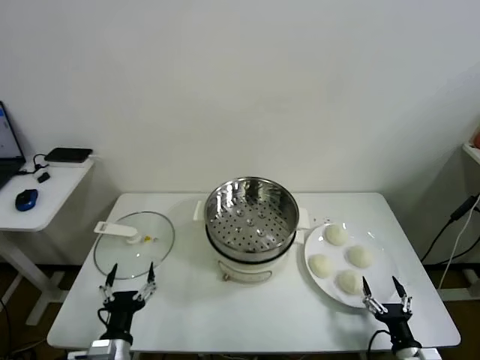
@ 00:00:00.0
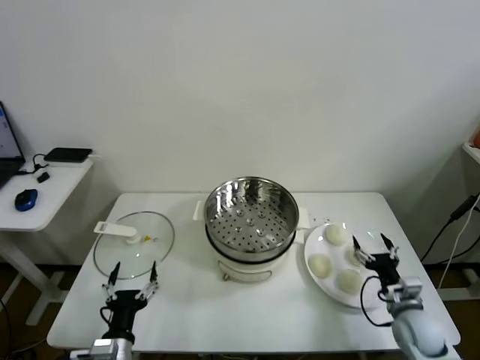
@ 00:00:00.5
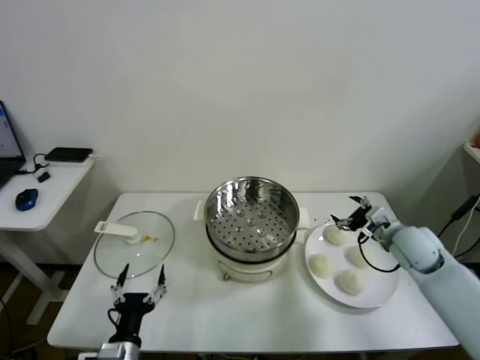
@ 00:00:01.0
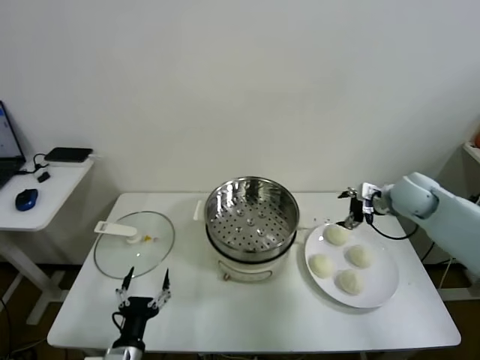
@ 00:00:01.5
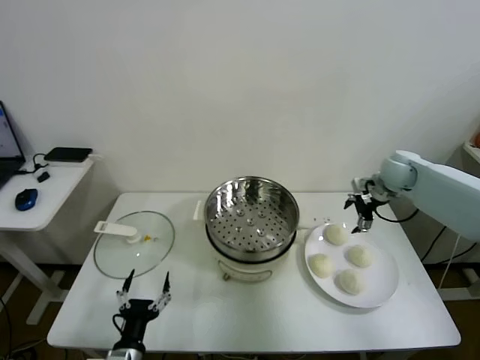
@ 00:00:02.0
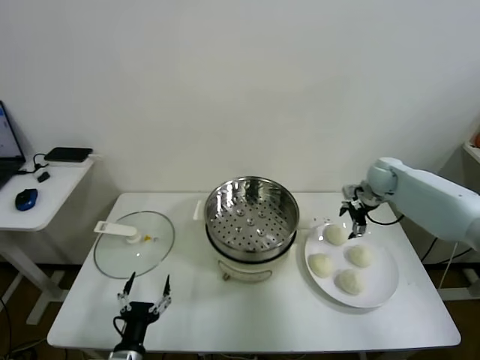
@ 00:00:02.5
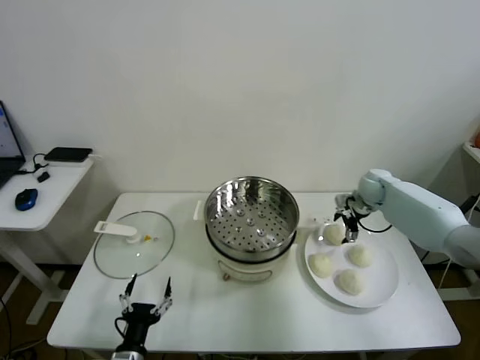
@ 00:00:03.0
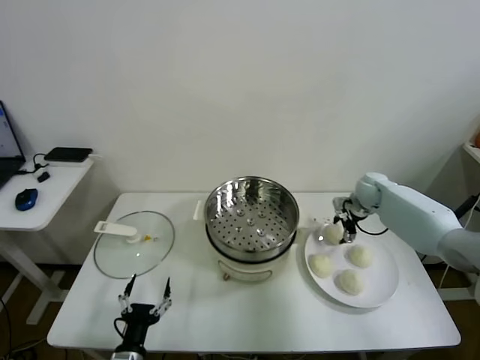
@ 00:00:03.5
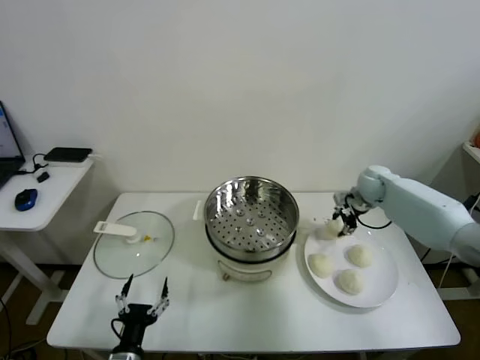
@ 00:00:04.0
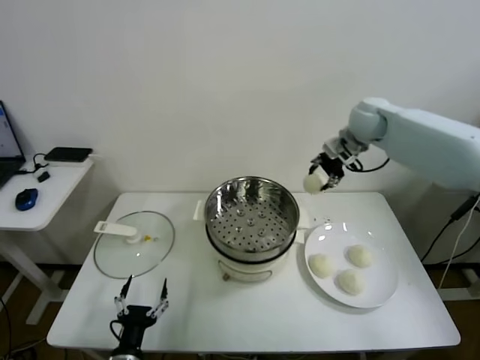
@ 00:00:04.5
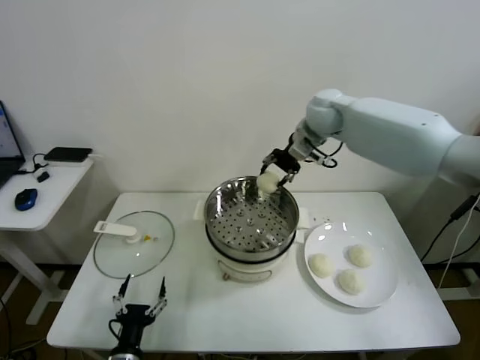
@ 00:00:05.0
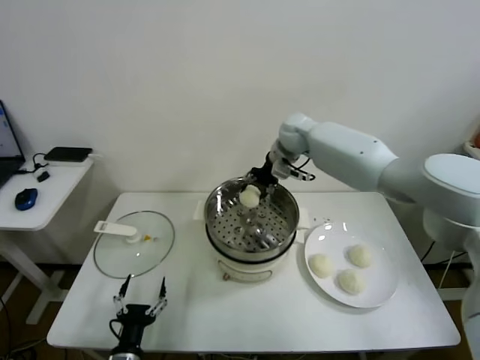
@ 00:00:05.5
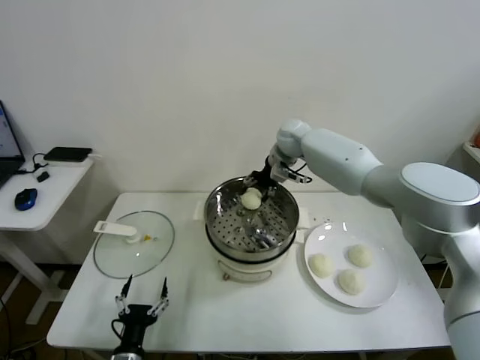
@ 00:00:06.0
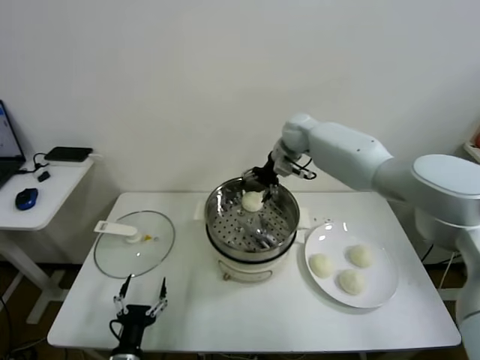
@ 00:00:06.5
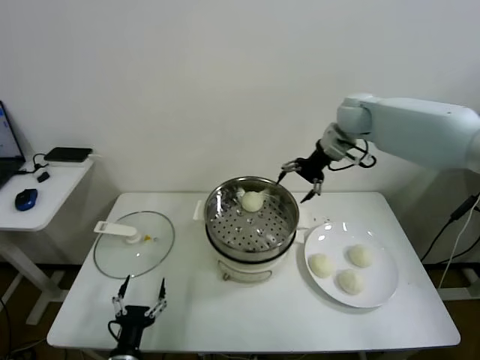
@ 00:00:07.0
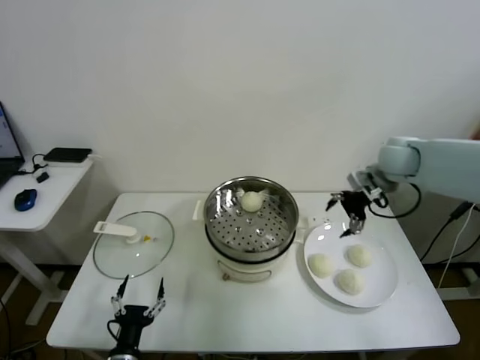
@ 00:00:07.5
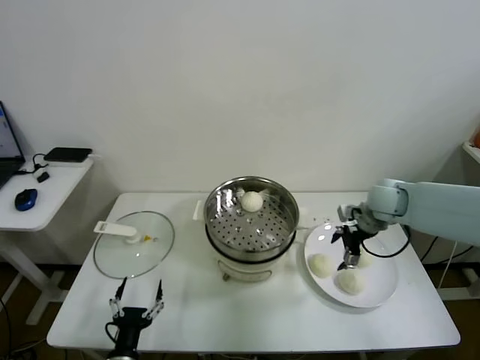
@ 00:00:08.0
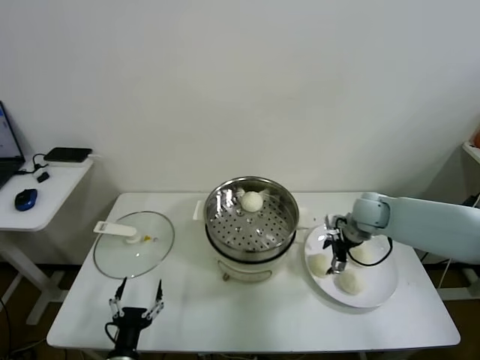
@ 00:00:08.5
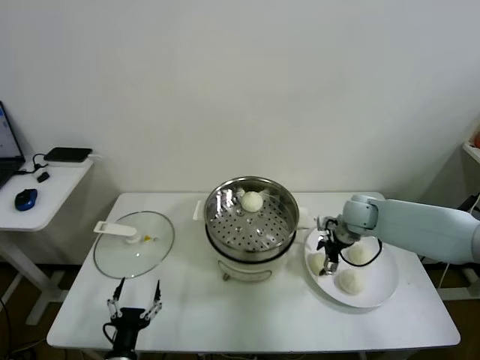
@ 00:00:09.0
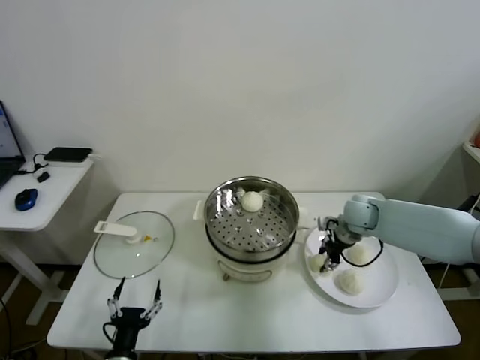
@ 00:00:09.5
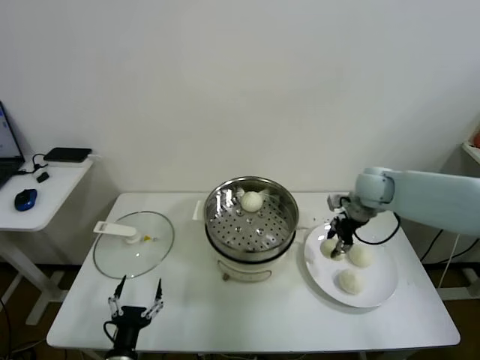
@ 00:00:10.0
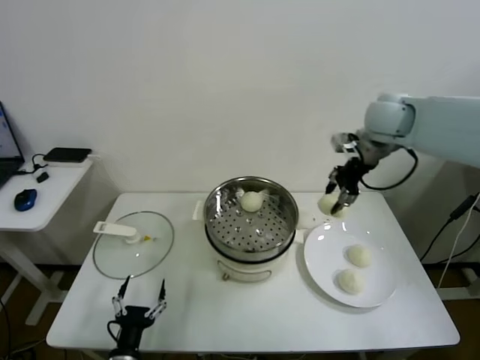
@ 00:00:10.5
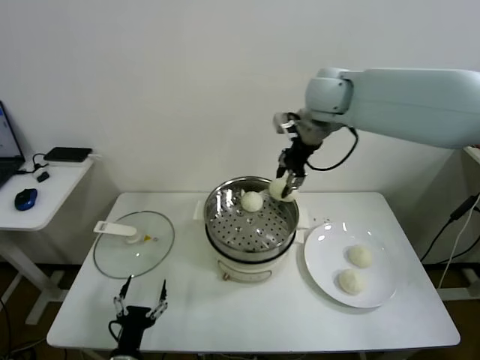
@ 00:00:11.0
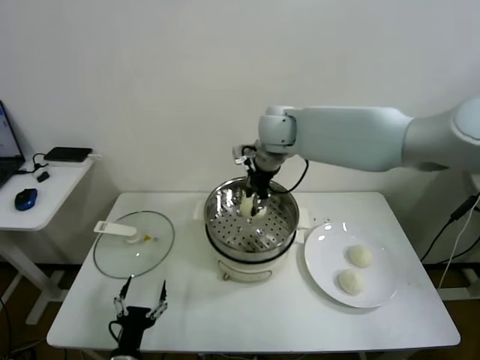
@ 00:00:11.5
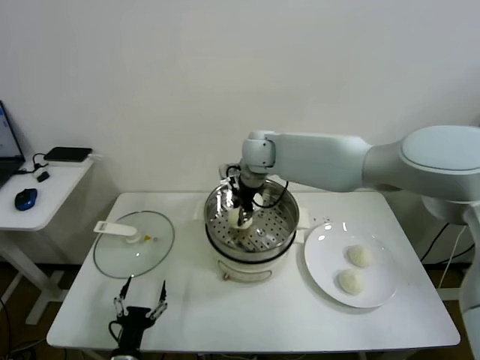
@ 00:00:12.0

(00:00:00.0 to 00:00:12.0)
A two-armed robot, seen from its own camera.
Task of the whole recording: take steamed baozi put them in steamer.
Step, 00:00:00.0 - 00:00:03.5: Grasp the baozi in the plate with right gripper.
Step, 00:00:04.0 - 00:00:06.0: Place the baozi on the steamer with right gripper.
Step, 00:00:06.5 - 00:00:09.0: Grasp the baozi in the plate with right gripper.
00:00:02.0 - 00:00:04.0: The right gripper closes its fingers.
00:00:04.0 - 00:00:06.0: The right gripper goes about 20 cm to the left, and opens up.
00:00:06.0 - 00:00:08.0: The right gripper goes some 25 cm to the right, backward and downward.
00:00:08.0 - 00:00:10.0: The right gripper ends up some 5 cm from where it was, and closes.
00:00:10.0 - 00:00:12.0: The right gripper goes about 25 cm to the left.

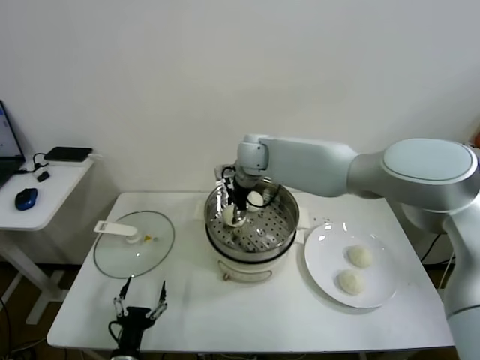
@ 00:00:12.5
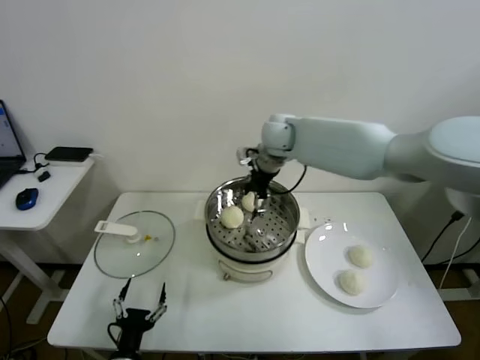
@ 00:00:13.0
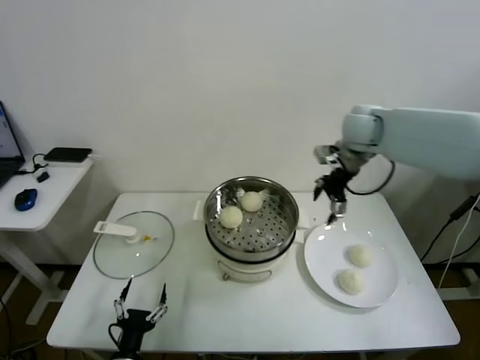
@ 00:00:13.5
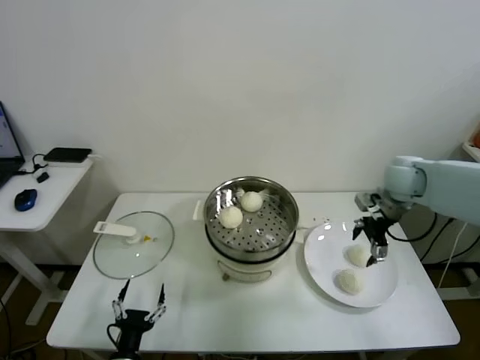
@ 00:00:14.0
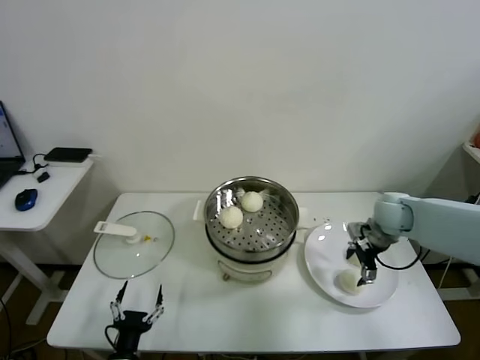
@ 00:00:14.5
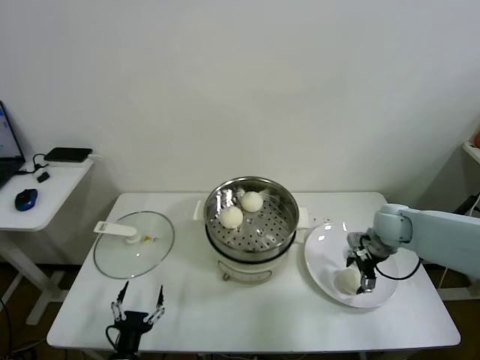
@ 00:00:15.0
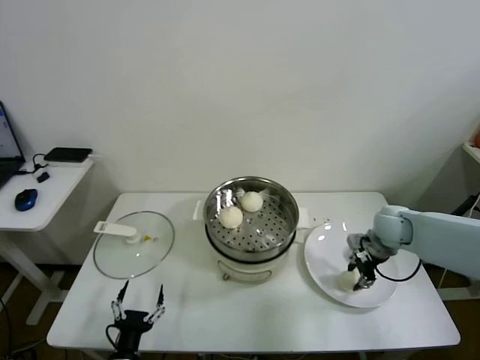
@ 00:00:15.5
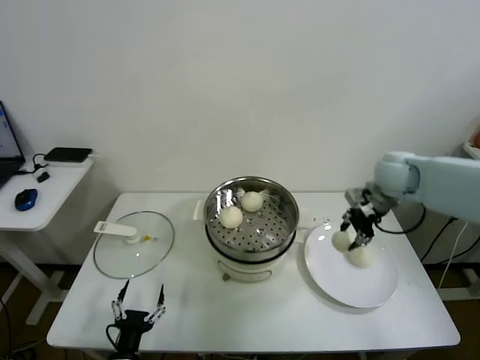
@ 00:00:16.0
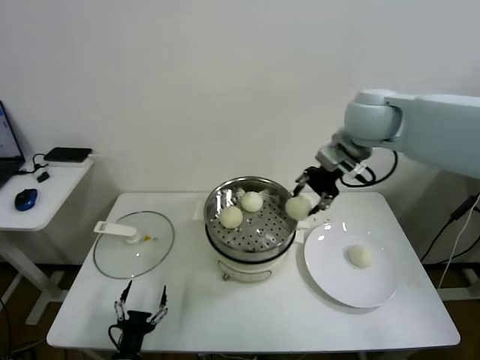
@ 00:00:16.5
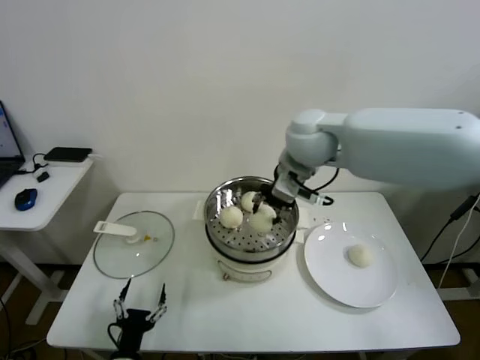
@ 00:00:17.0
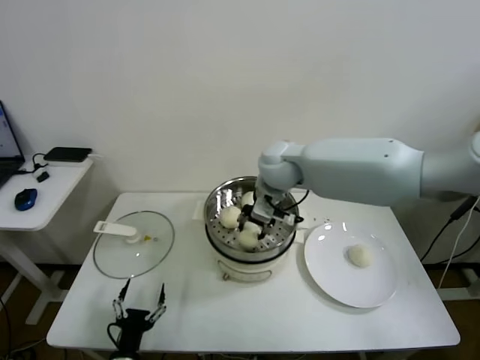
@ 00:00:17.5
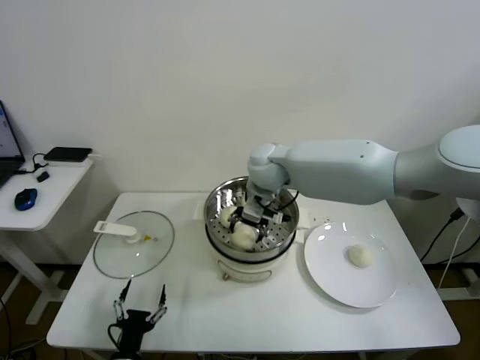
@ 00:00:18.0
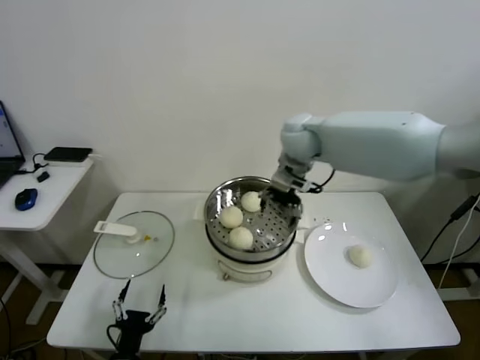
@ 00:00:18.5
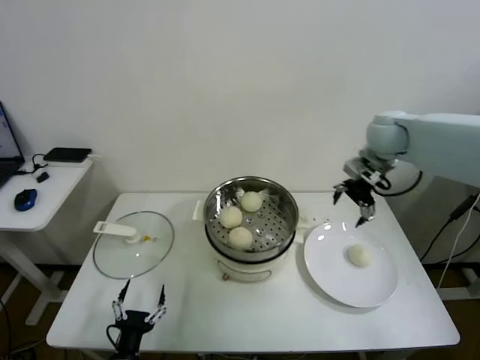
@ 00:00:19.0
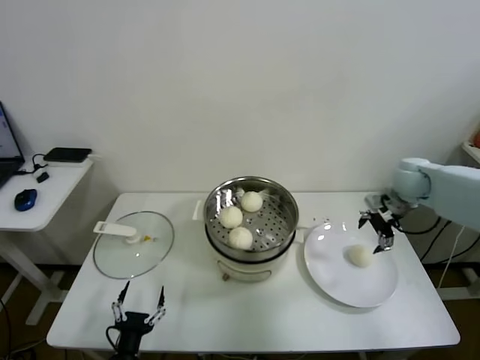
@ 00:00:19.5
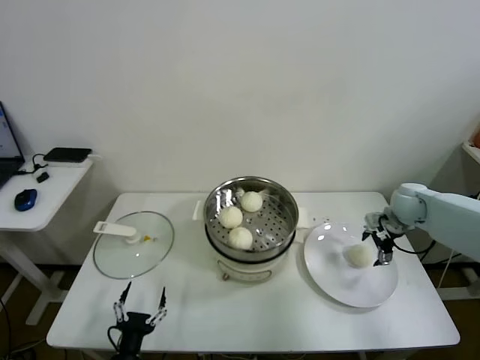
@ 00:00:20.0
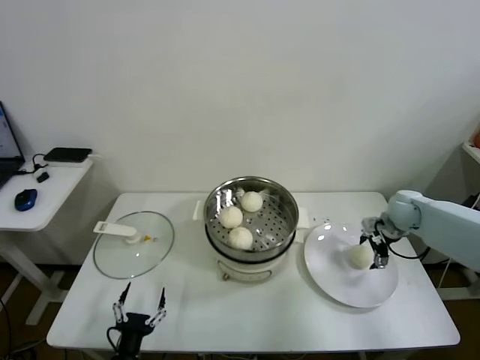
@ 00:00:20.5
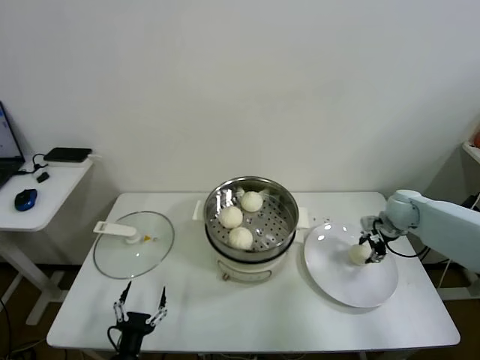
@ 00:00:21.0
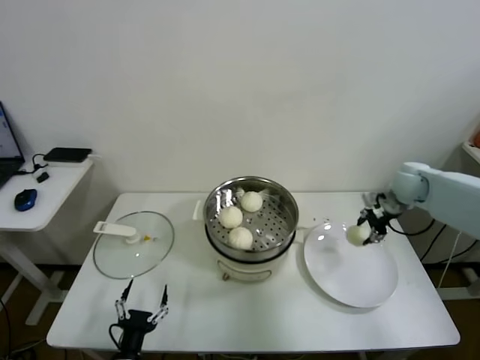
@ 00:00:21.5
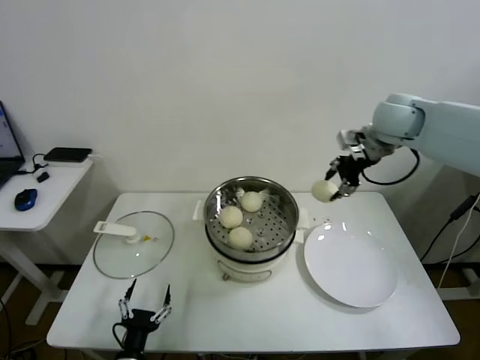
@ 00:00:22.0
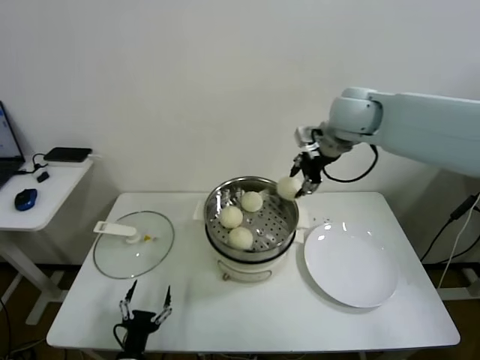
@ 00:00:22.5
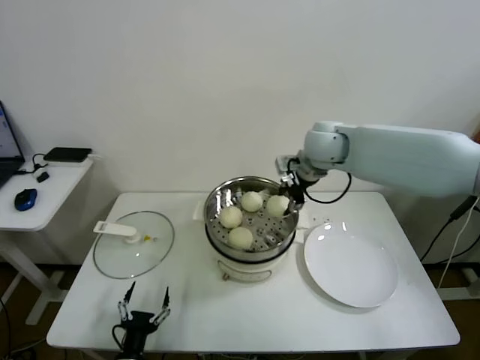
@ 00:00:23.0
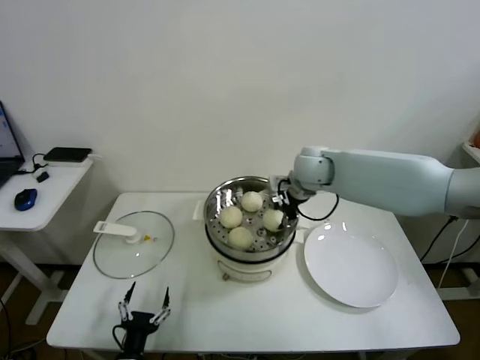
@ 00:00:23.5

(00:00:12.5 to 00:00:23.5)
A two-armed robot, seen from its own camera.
Task of the whole recording: take steamed baozi put them in steamer.
Step, 00:00:13.0 - 00:00:15.5: Grasp the baozi in the plate with right gripper.
Step, 00:00:16.0 - 00:00:18.0: Place the baozi on the steamer with right gripper.
Step, 00:00:18.5 - 00:00:21.0: Grasp the baozi in the plate with right gripper.
00:00:12.5 - 00:00:14.5: The right gripper travels to the right by approximately 35 cm, and opens.
00:00:14.5 - 00:00:16.0: The right gripper travels upward by about 10 cm, and closes.
00:00:16.0 - 00:00:18.0: The right gripper goes about 30 cm to the left, and opens.
00:00:18.0 - 00:00:20.0: The right gripper heads to the right, covering approximately 35 cm, and opens.
00:00:20.0 - 00:00:21.5: The right gripper goes some 5 cm upward, and closes its fingers.
00:00:21.5 - 00:00:23.5: The right gripper is displaced to the left by about 25 cm.

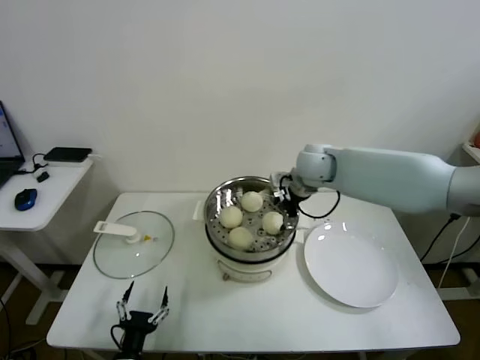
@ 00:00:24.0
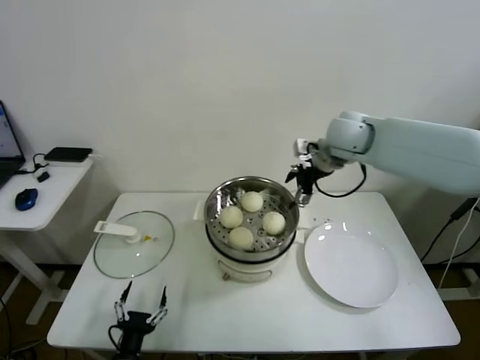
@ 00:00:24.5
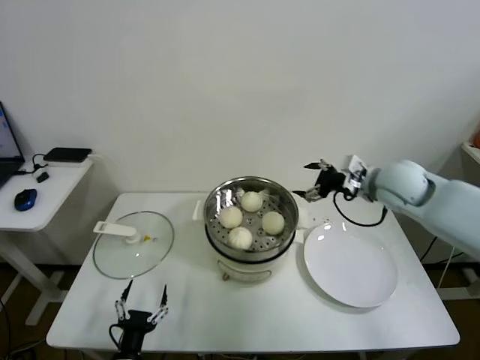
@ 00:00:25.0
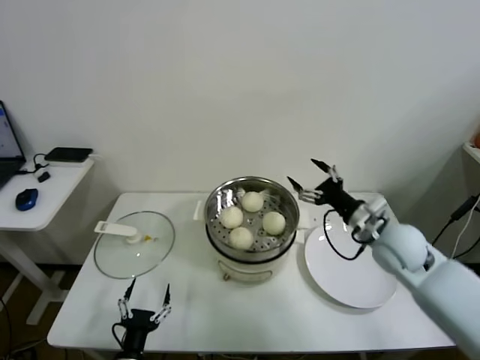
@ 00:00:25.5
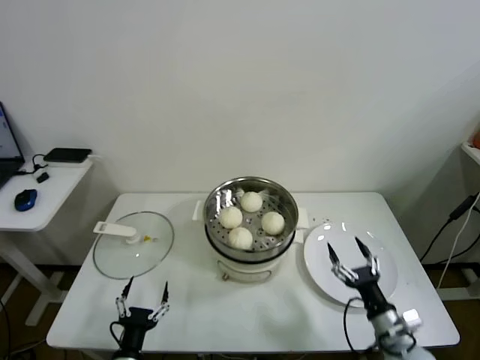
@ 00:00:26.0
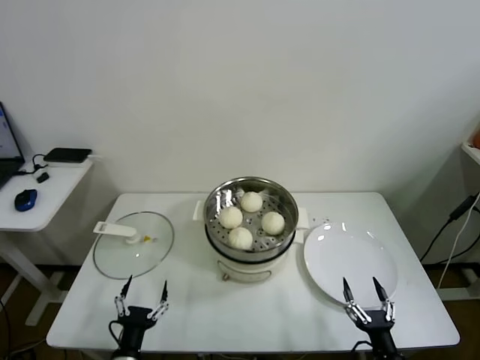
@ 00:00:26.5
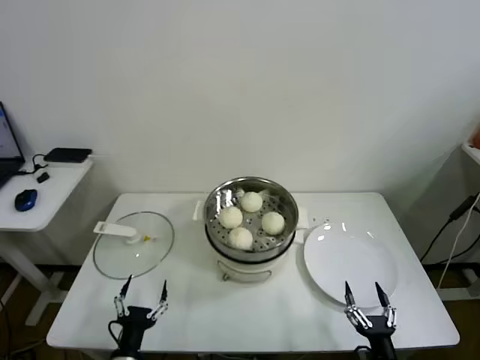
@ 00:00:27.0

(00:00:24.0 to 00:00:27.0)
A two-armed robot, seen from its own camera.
Task of the whole recording: take steamed baozi put them in steamer.
00:00:24.0 - 00:00:25.5: The right gripper travels backward, to the right and downward by approximately 20 cm.
00:00:25.5 - 00:00:27.0: The right gripper moves backward and downward, approximately 35 cm.
